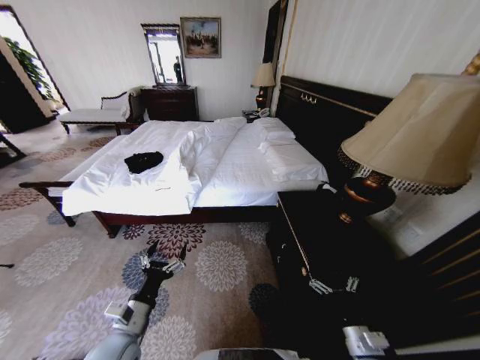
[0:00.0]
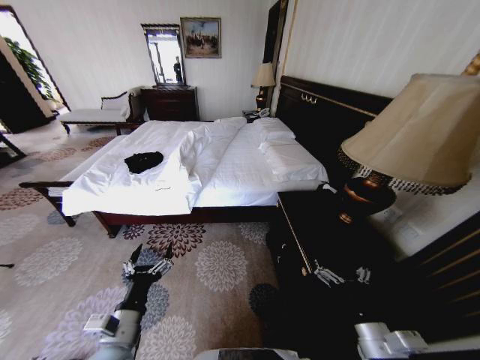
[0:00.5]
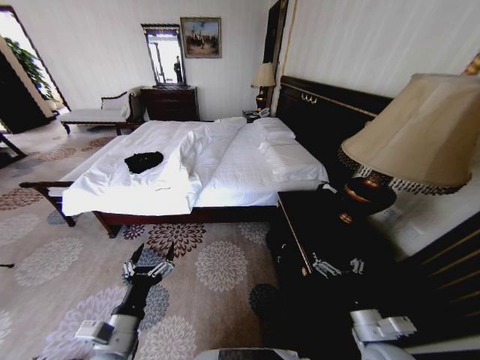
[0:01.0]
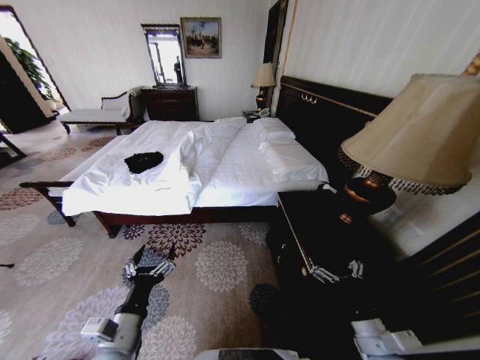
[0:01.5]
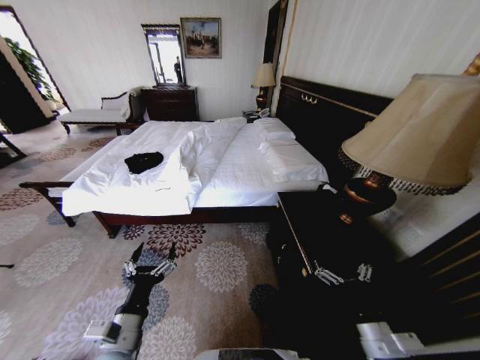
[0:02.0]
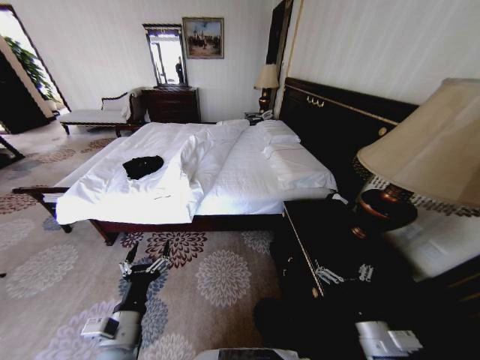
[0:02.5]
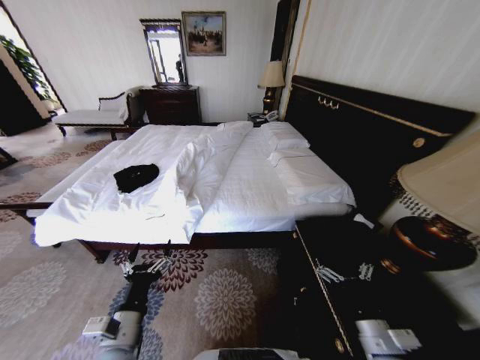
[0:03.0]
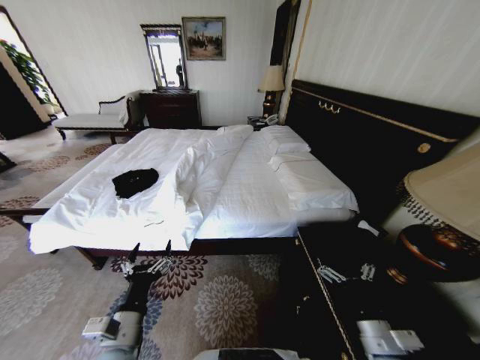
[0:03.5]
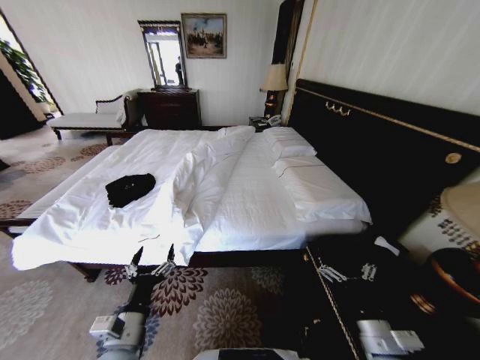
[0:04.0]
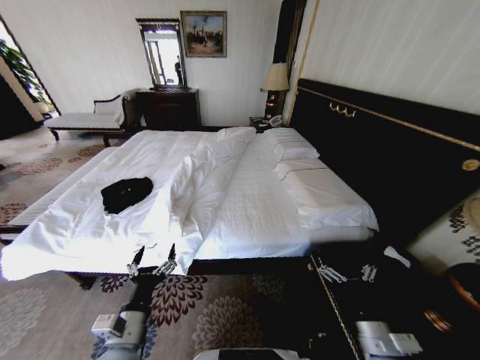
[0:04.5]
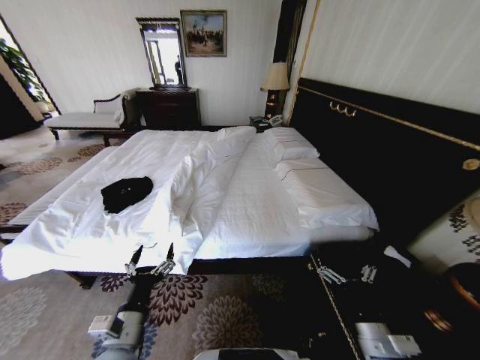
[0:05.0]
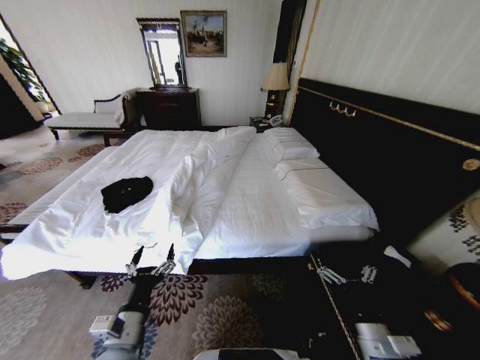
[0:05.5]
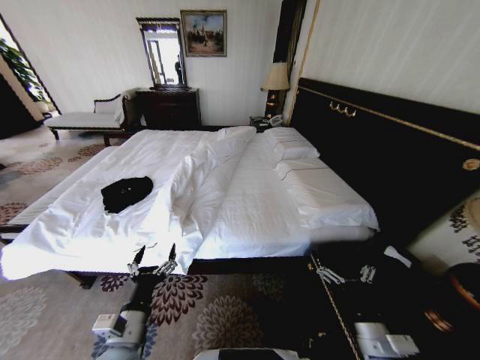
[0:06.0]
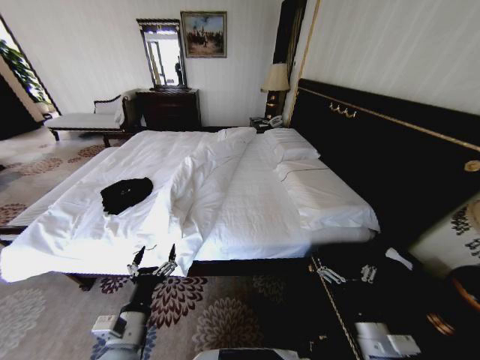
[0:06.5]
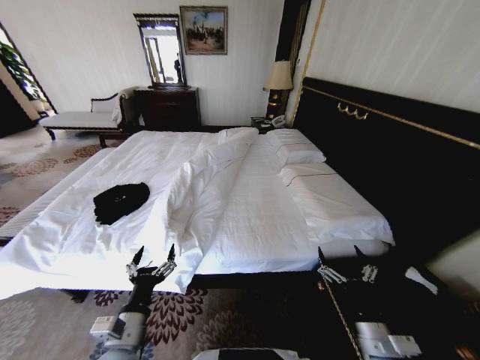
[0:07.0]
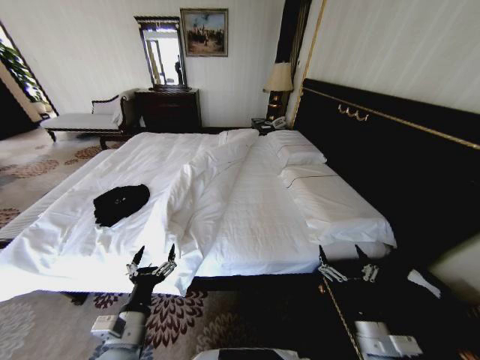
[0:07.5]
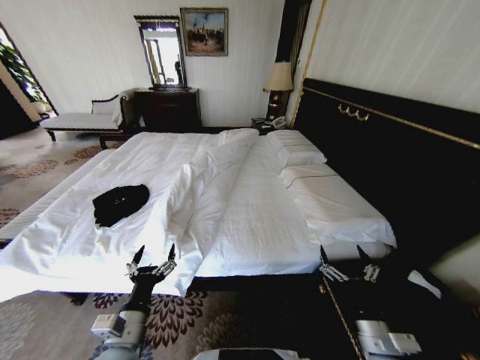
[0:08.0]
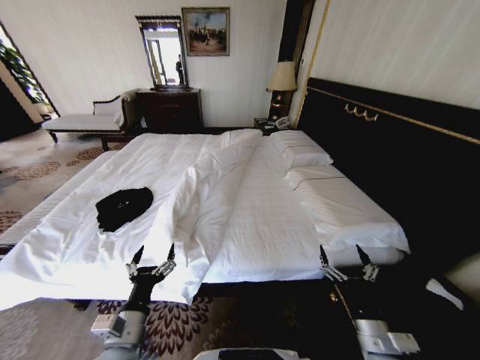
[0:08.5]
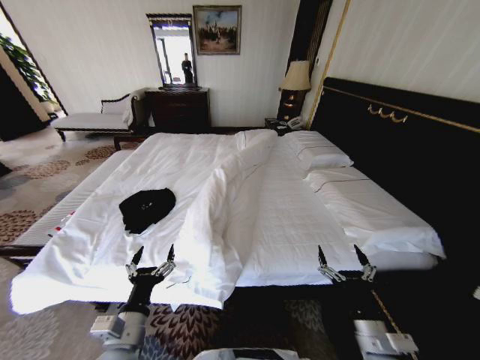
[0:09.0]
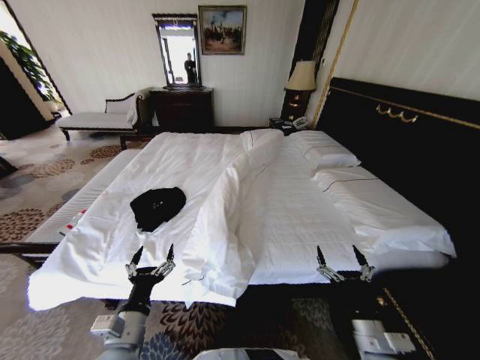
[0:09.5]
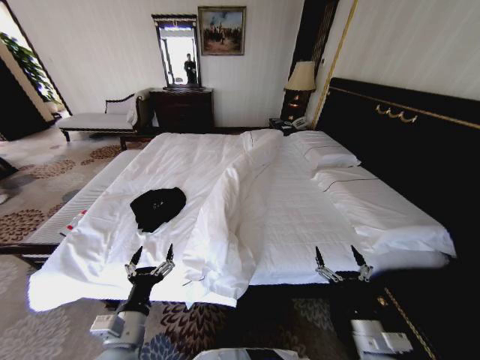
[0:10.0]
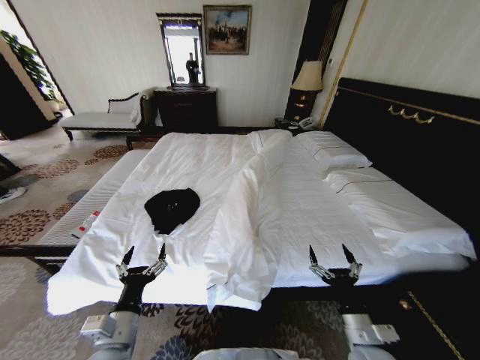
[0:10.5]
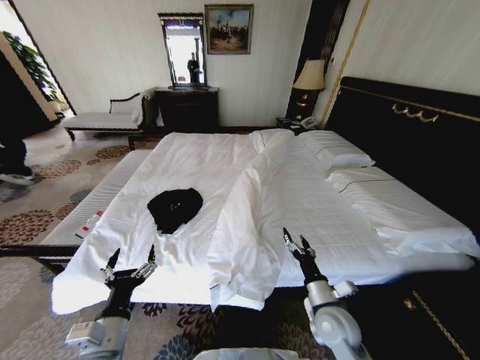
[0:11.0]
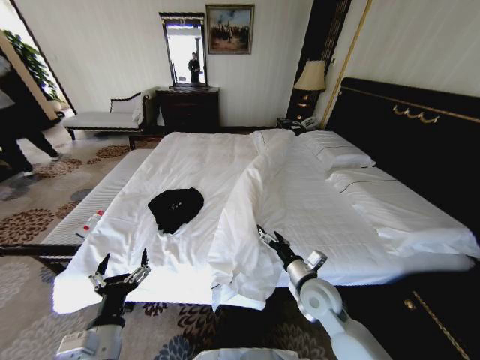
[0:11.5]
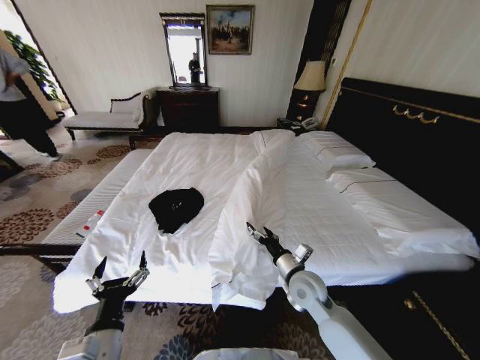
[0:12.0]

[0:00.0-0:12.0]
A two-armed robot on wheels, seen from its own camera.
Task of the whole recording: Fold the clothes on the bed.
0:04.0 to 0:06.0: Both grippers stay about where they are.
0:10.0 to 0:12.0: The right gripper travels forward and to the left by about 20 cm.

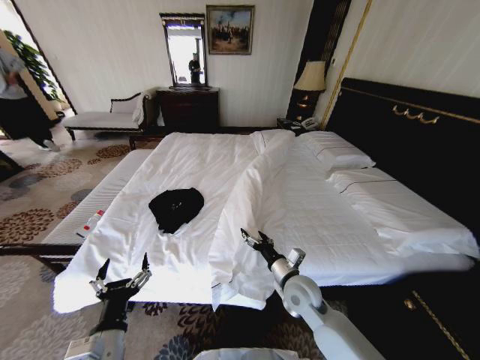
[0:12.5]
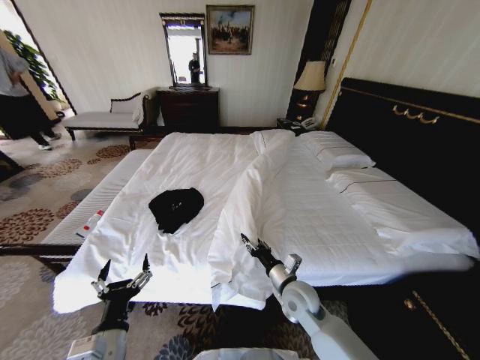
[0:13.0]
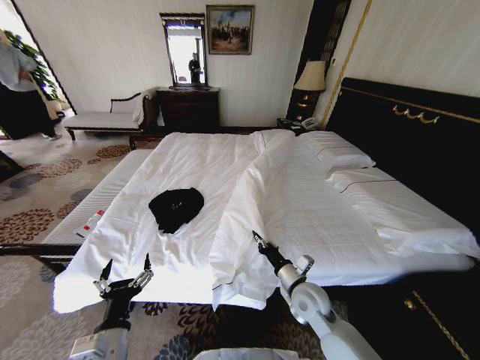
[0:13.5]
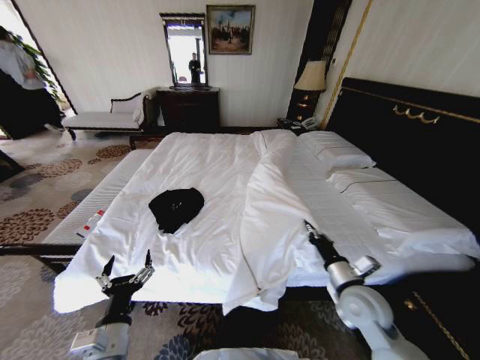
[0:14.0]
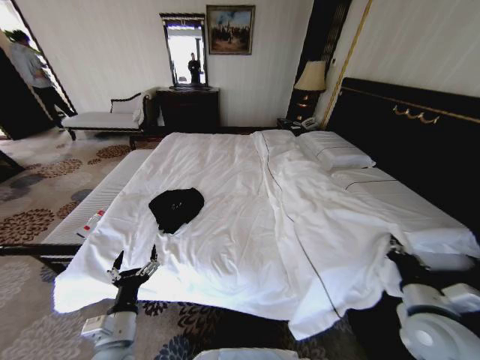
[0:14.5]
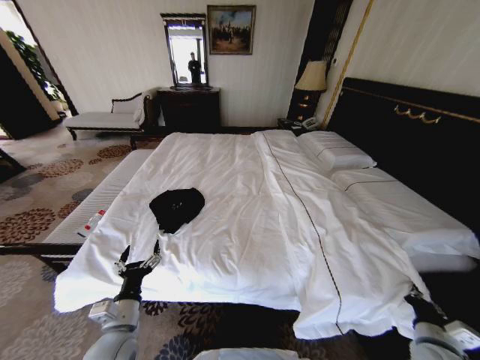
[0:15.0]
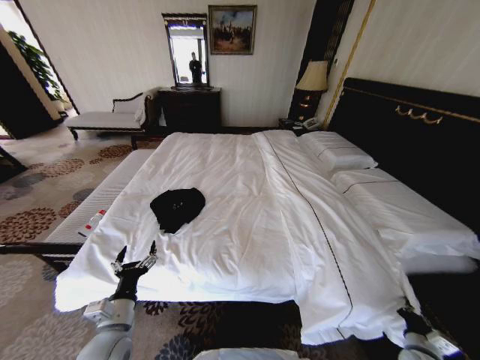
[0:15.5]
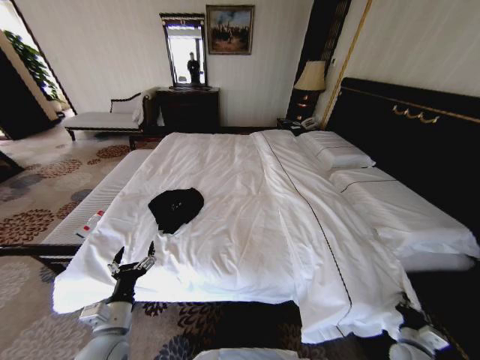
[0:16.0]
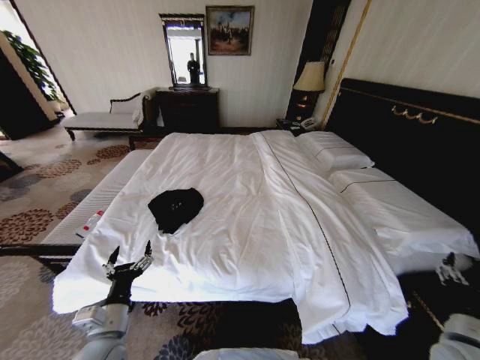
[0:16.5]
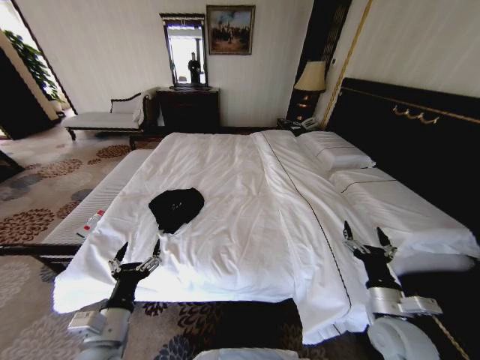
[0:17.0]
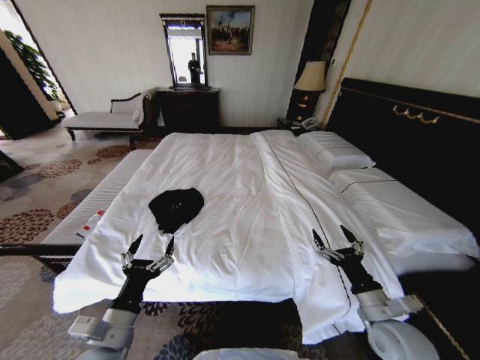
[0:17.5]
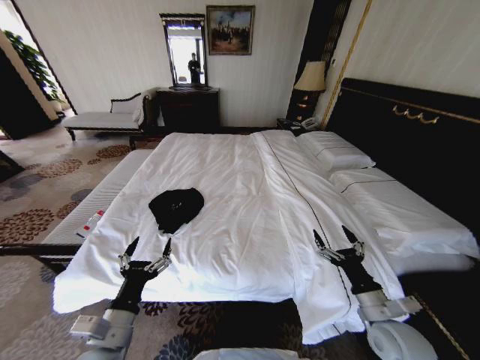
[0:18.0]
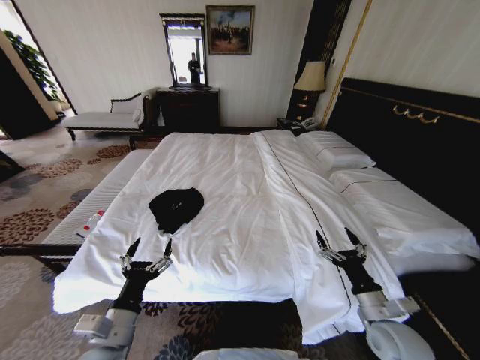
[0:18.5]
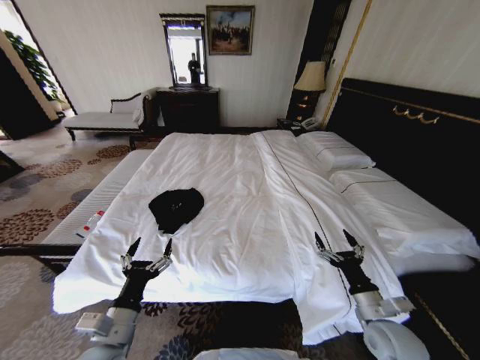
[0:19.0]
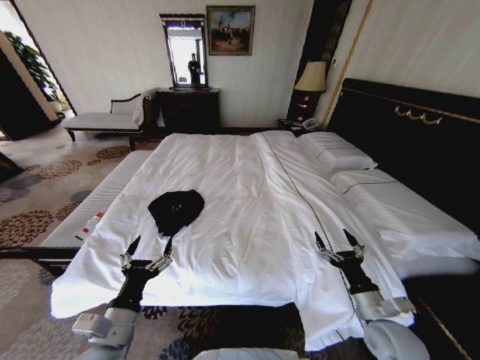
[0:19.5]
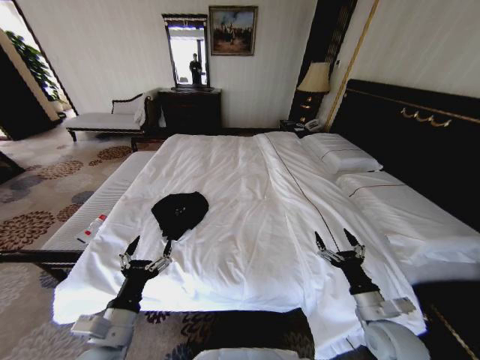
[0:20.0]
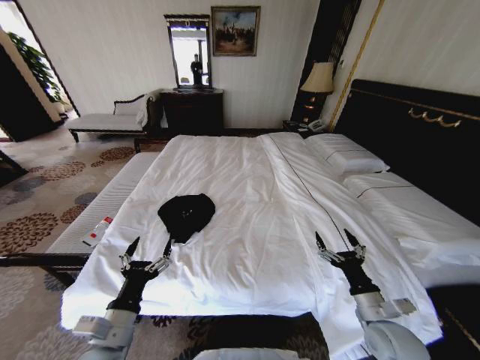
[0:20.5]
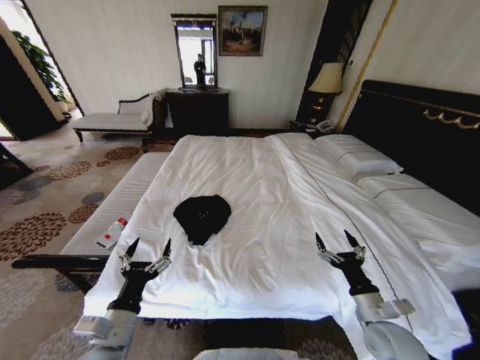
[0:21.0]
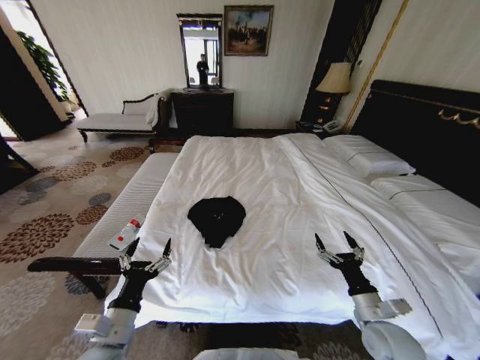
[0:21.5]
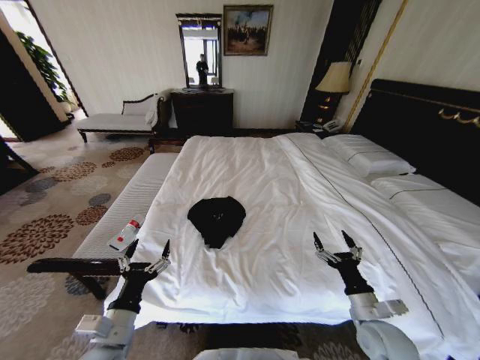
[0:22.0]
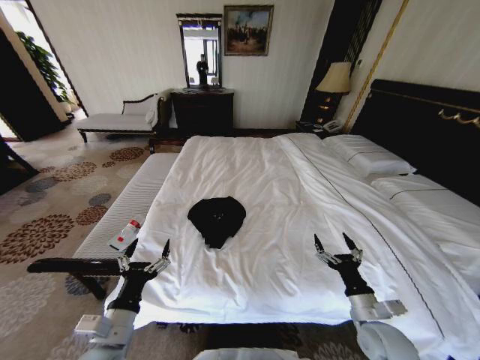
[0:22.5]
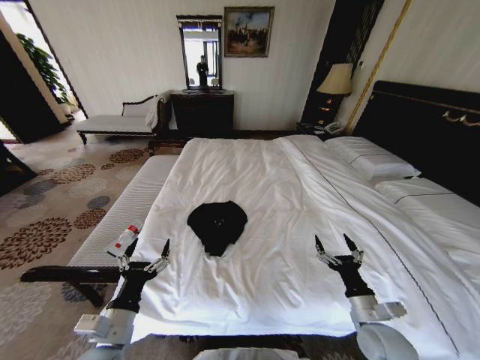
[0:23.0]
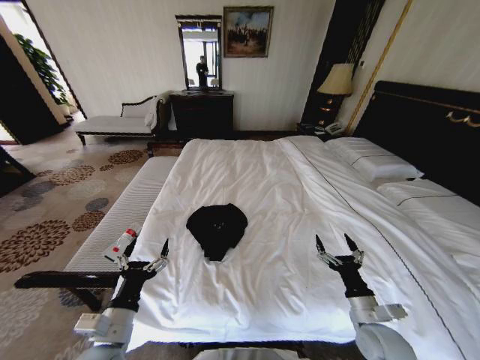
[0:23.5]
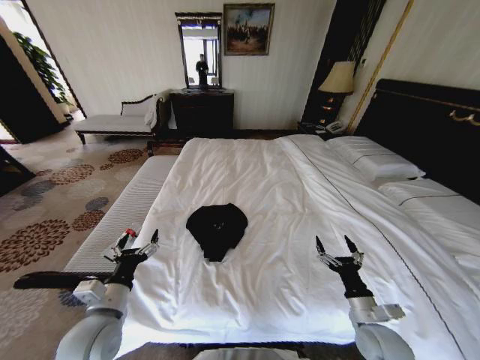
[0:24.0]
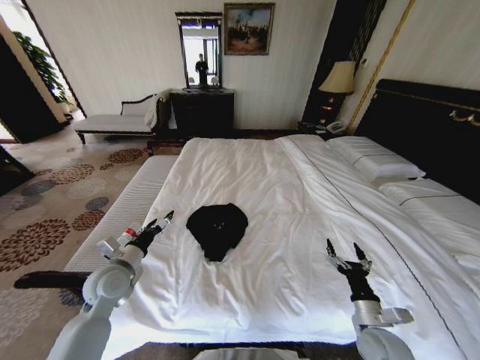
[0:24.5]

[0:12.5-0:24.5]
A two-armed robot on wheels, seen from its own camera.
Task of the whole recording: Fold the clothes on the bed.
0:12.5 to 0:14.5: The right gripper is displaced to the right and backward by approximately 25 cm, and closes up.
0:14.5 to 0:16.5: The right gripper heads to the right, covering about 5 cm, travels downward and back again, some 25 cm each way, and opens.
0:16.5 to 0:18.5: The left gripper changes place by about 5 cm. The right gripper travels to the left by roughly 10 cm.
0:22.5 to 0:24.5: The left gripper shifts about 15 cm forward.

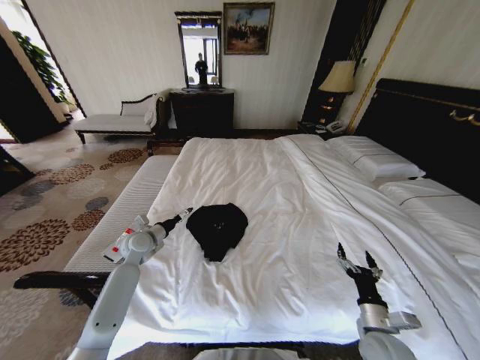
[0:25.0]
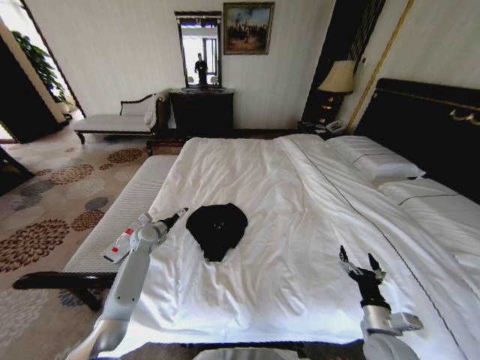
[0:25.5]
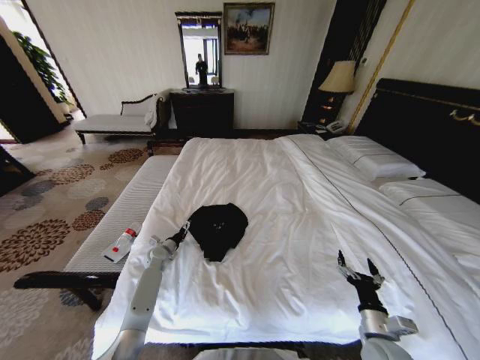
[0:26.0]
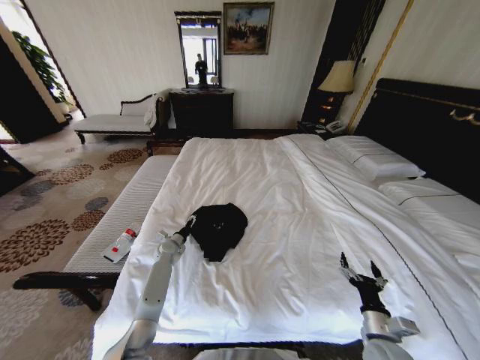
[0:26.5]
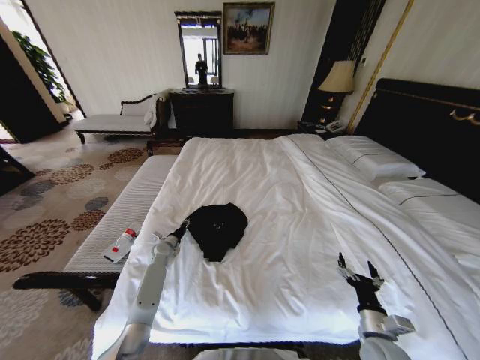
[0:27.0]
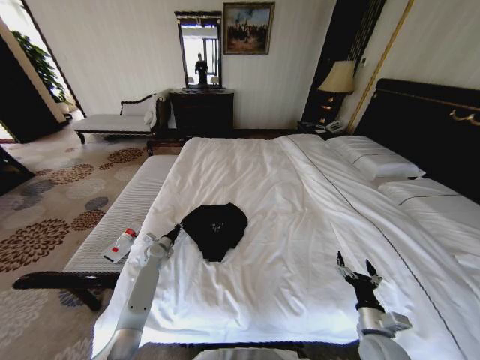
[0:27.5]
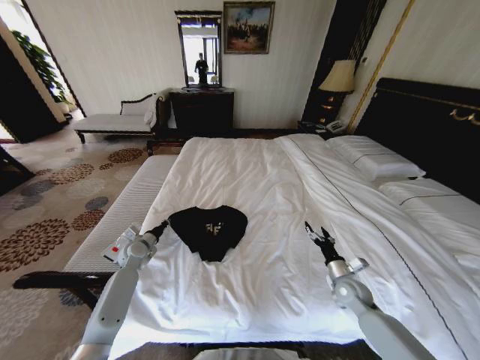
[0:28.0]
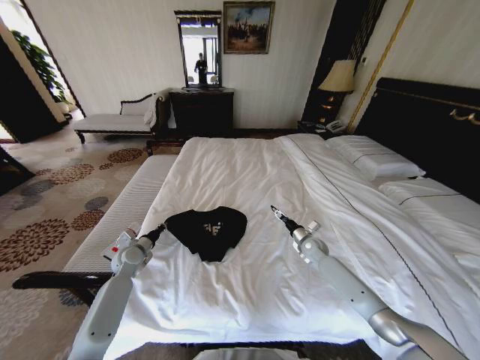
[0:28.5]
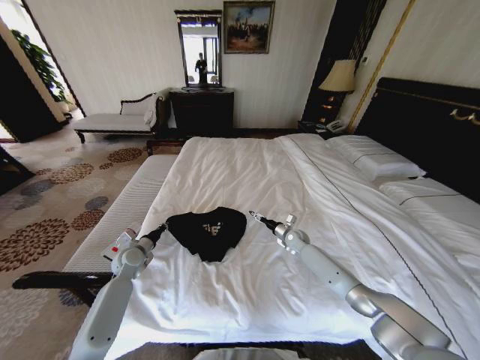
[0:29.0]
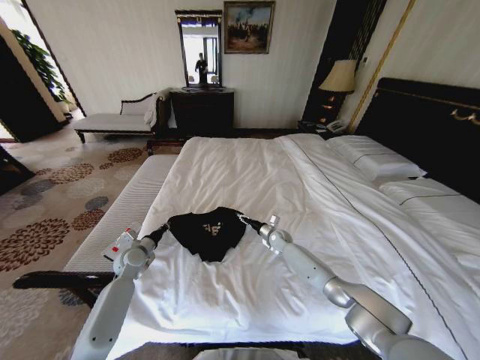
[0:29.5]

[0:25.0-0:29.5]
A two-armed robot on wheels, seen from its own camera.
Task of the whole recording: Fold the clothes on the bed.
0:25.0 to 0:27.0: The left gripper goes approximately 15 cm downward, and closes.
0:27.0 to 0:29.5: The right gripper heads forward and to the left, covering approximately 40 cm, while the left gripper heads upward, backward and to the left, covering approximately 10 cm, and closes.
